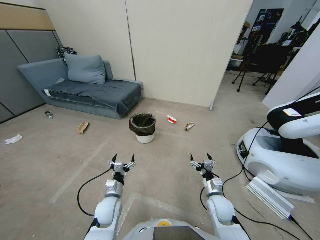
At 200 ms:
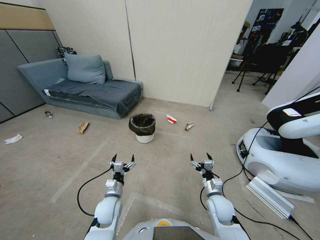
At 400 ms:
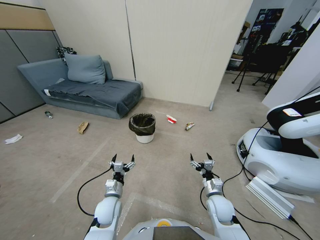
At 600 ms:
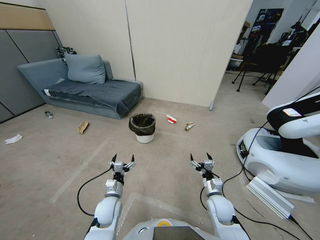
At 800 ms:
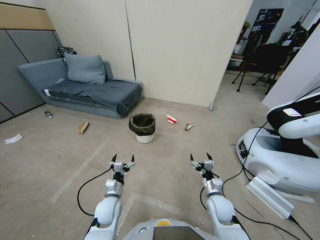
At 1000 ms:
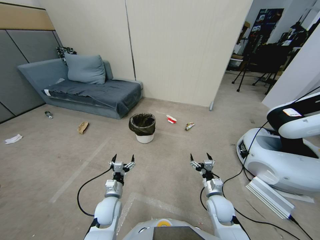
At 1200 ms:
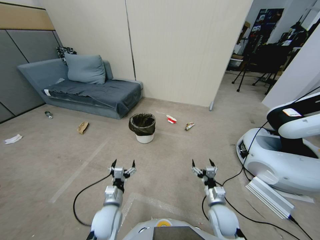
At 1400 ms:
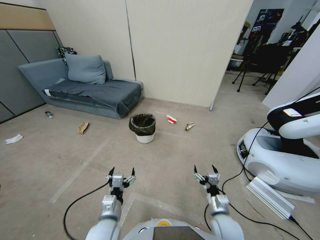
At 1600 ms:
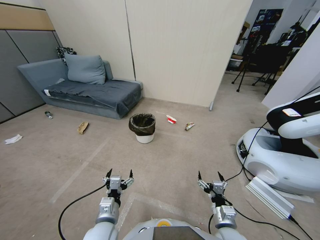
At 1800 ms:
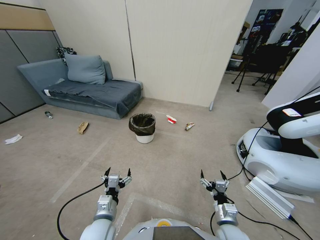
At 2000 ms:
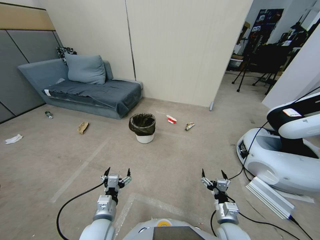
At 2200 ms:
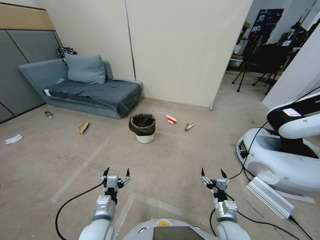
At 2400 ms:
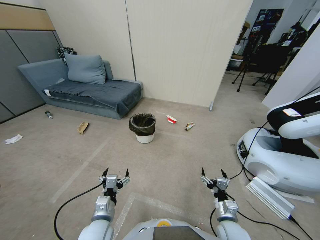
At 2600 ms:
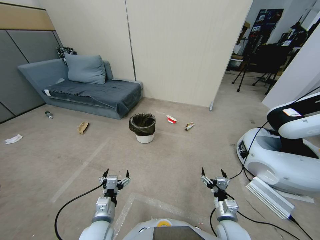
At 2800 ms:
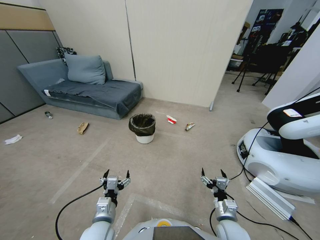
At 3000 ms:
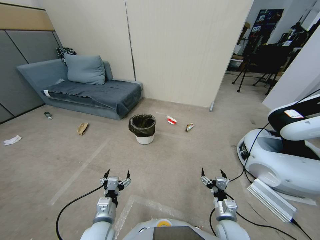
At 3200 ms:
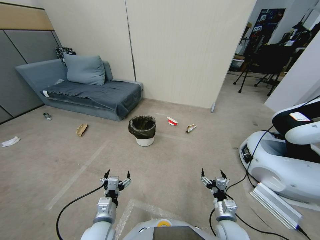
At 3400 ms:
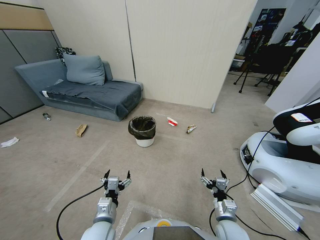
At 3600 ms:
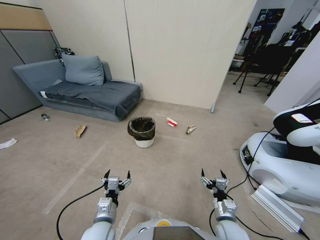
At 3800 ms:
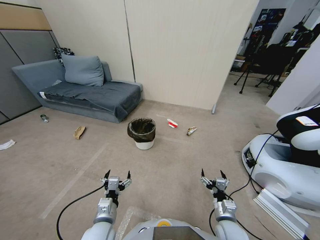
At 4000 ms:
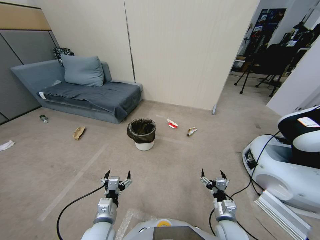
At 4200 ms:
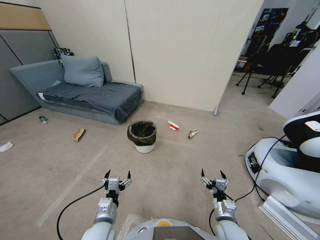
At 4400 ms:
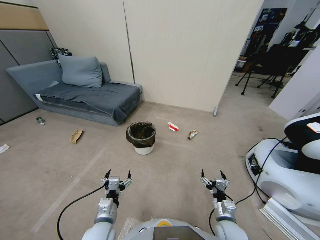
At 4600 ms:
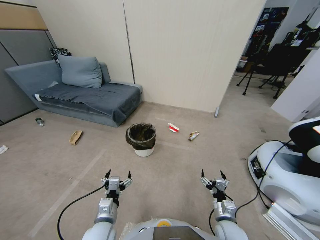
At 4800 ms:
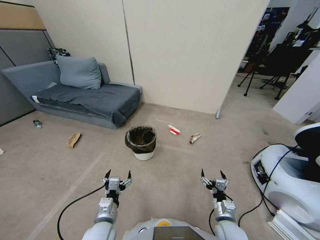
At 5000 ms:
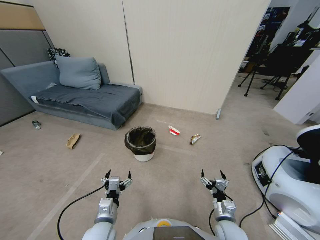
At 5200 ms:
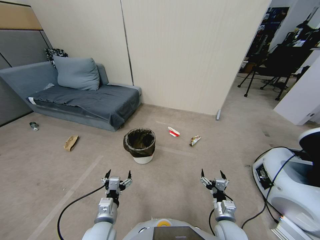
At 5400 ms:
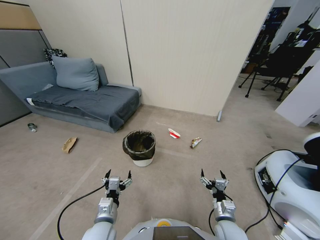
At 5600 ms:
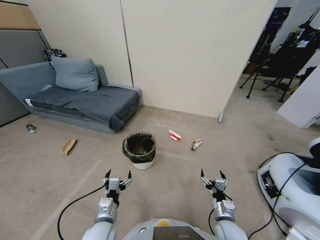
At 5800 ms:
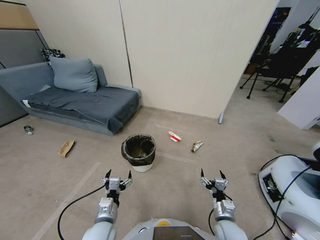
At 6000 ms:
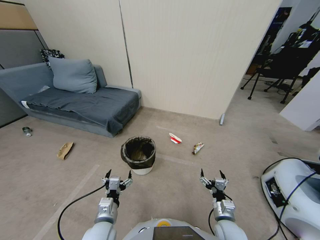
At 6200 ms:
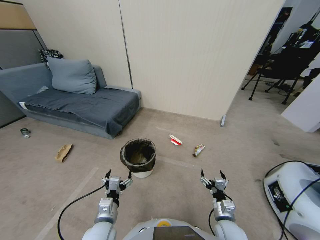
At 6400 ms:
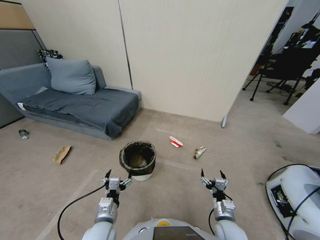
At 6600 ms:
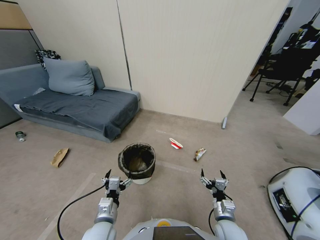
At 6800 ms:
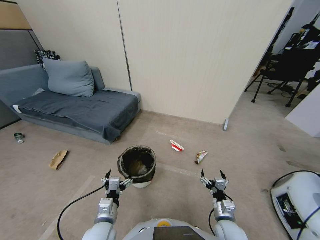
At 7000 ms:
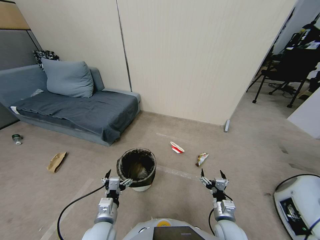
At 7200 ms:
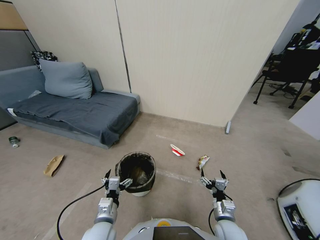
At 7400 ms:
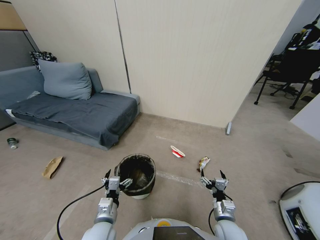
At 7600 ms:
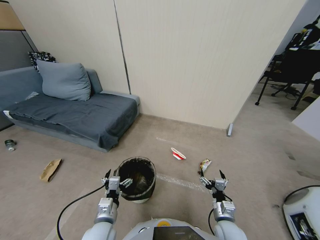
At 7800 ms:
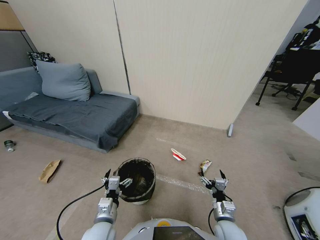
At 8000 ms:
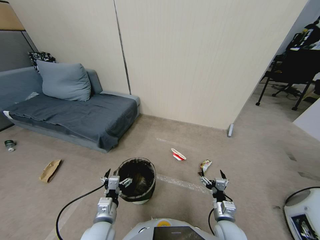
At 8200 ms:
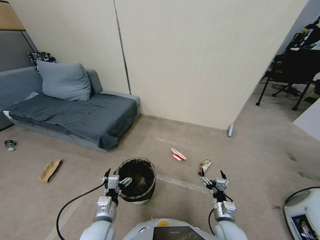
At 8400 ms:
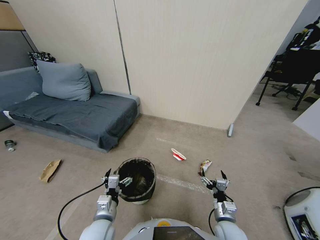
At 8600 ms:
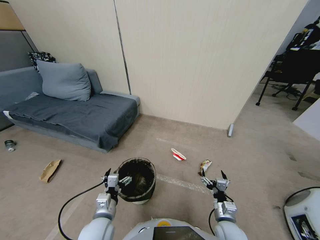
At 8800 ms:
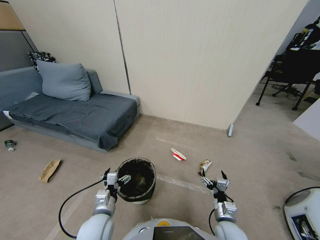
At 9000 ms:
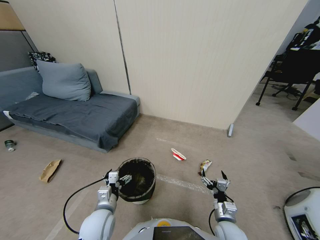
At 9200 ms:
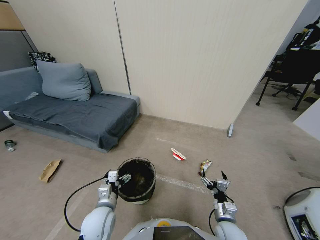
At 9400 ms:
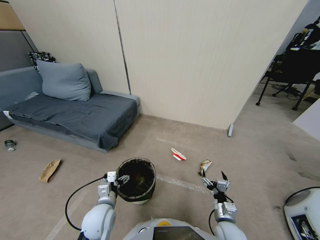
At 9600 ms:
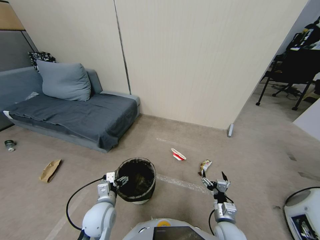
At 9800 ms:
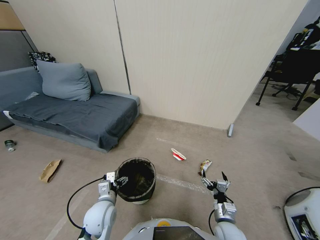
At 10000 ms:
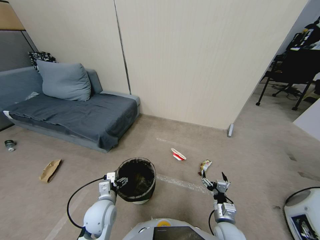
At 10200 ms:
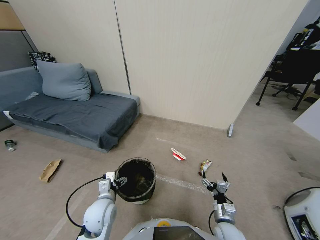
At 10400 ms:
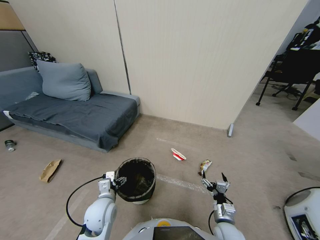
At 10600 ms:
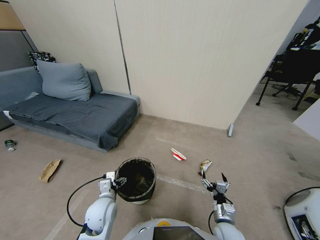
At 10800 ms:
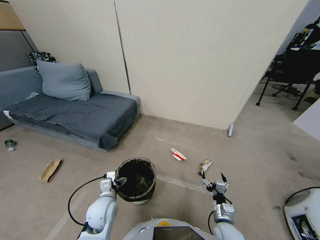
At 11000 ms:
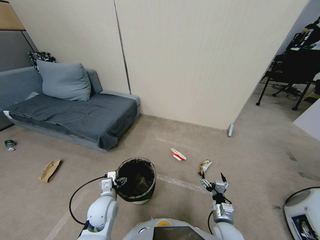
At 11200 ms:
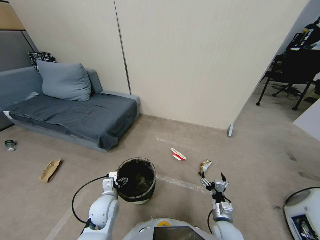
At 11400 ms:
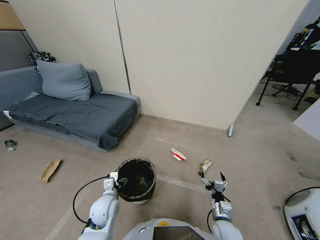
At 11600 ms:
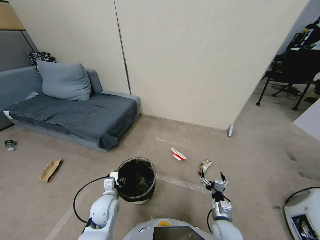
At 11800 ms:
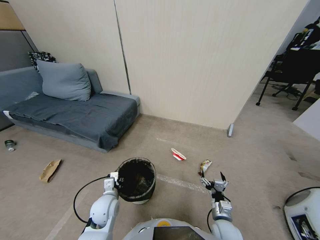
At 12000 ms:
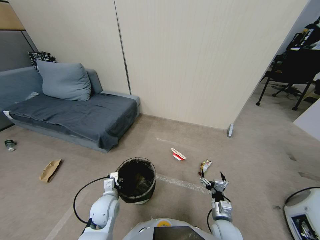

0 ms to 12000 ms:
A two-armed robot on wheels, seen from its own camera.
Task of the whole recording: Pick up the trash bin, then pick up the garbage from the floor and place it into the trash bin.
1600 ms to 3000 ms: The grippers stay close to where they were, moving slightly.
7600 ms to 9000 ms: There are only small adjustments of the grippers.
9000 ms to 10400 ms: The grippers stay close to where they were, moving slightly.
10400 ms to 12000 ms: The left gripper closes up.

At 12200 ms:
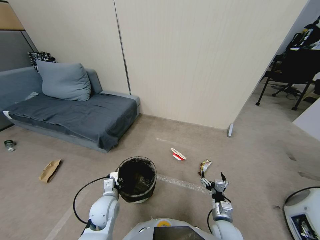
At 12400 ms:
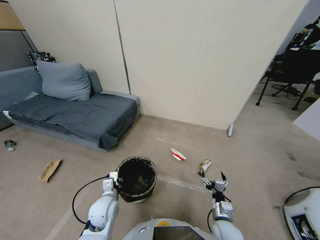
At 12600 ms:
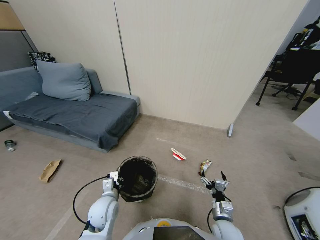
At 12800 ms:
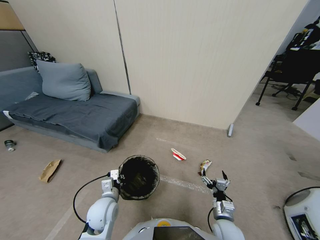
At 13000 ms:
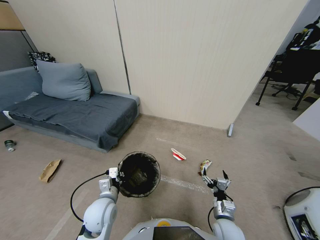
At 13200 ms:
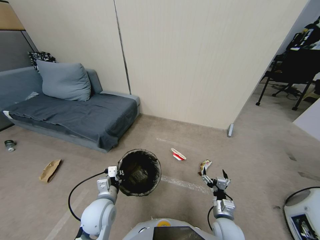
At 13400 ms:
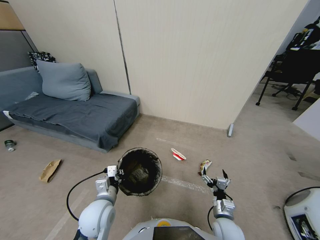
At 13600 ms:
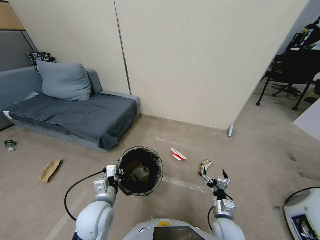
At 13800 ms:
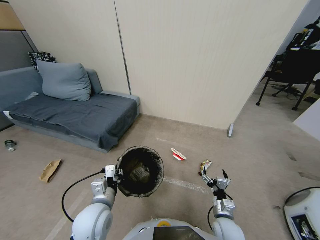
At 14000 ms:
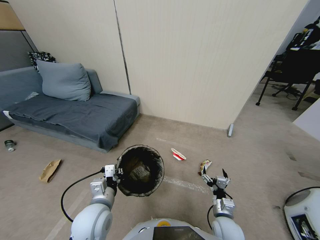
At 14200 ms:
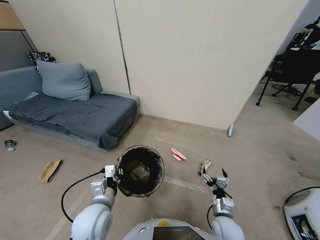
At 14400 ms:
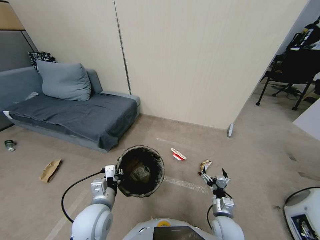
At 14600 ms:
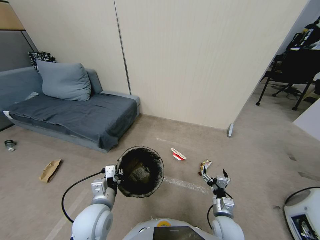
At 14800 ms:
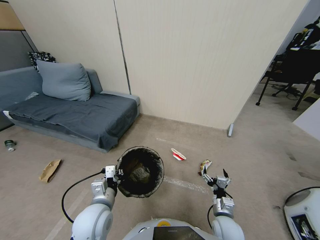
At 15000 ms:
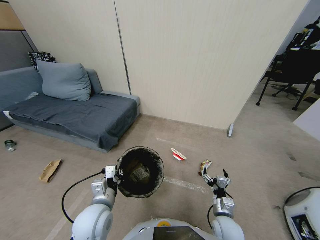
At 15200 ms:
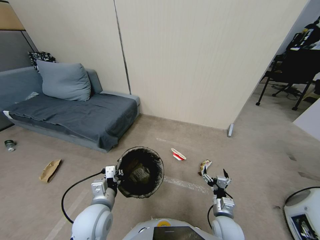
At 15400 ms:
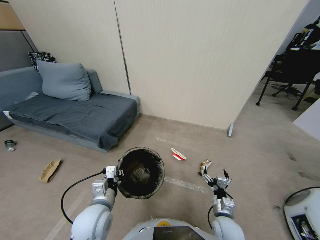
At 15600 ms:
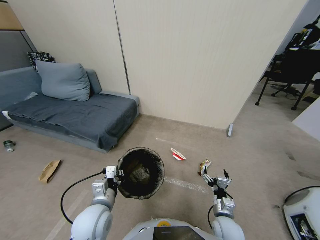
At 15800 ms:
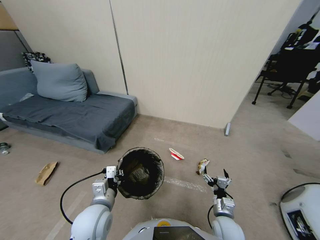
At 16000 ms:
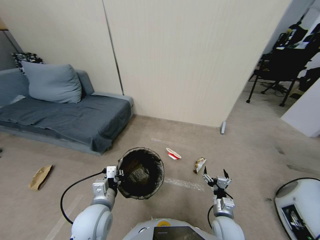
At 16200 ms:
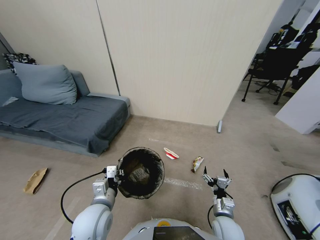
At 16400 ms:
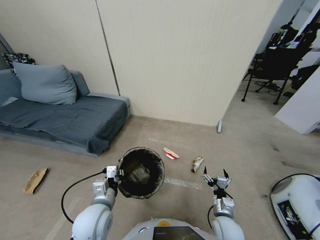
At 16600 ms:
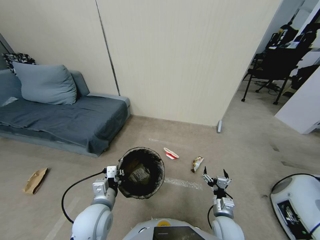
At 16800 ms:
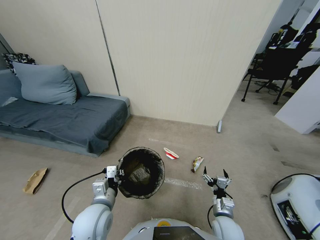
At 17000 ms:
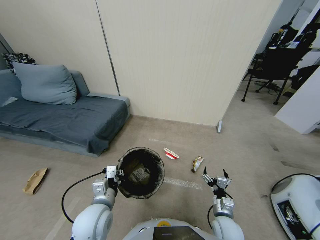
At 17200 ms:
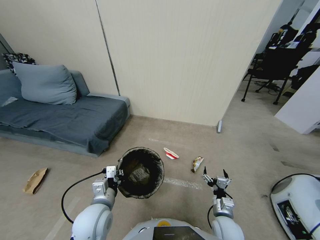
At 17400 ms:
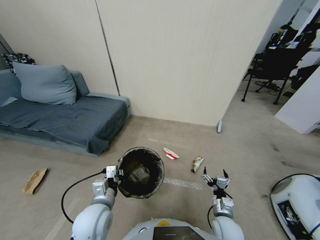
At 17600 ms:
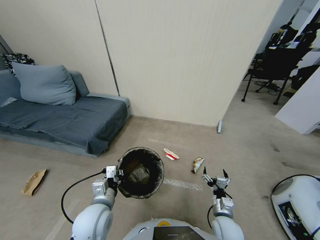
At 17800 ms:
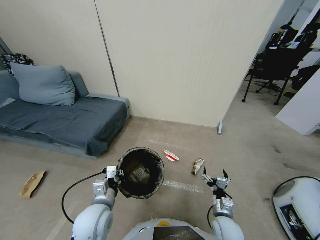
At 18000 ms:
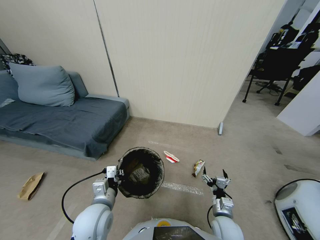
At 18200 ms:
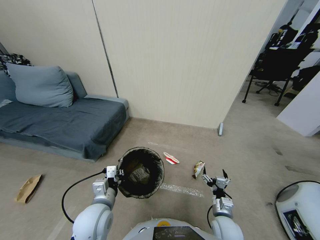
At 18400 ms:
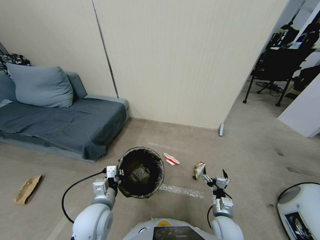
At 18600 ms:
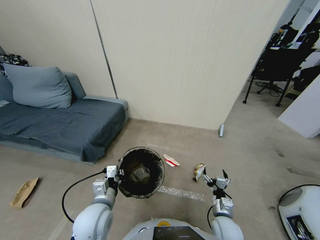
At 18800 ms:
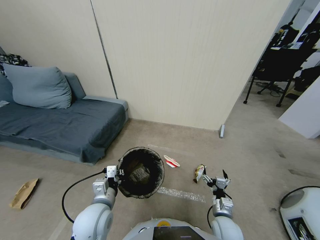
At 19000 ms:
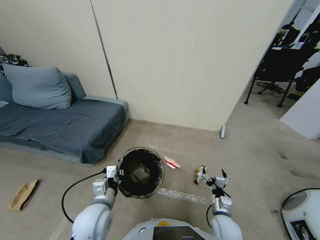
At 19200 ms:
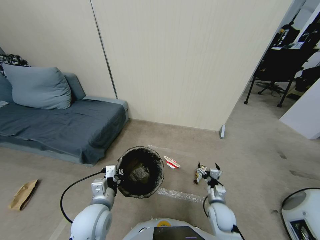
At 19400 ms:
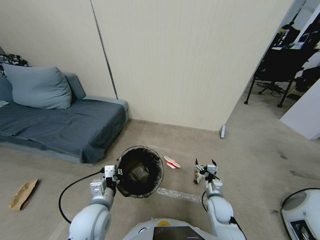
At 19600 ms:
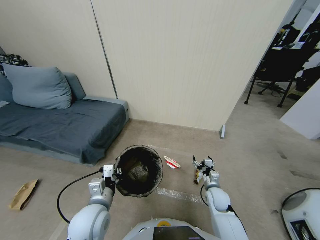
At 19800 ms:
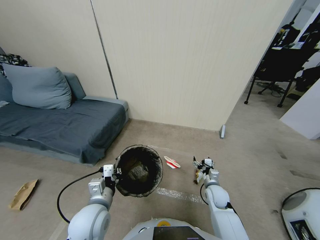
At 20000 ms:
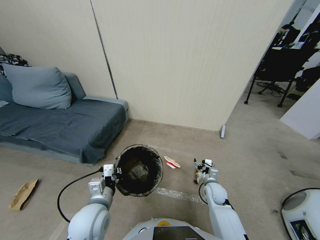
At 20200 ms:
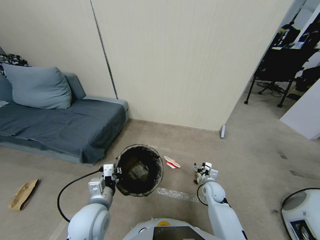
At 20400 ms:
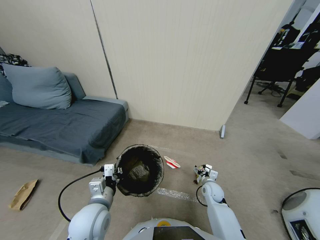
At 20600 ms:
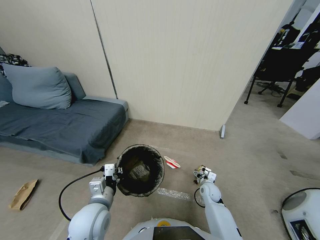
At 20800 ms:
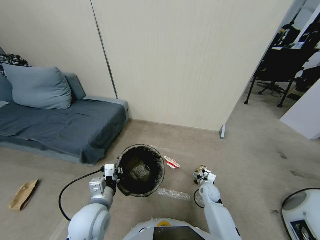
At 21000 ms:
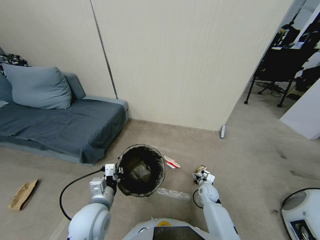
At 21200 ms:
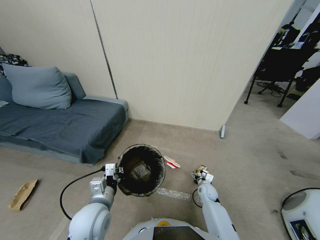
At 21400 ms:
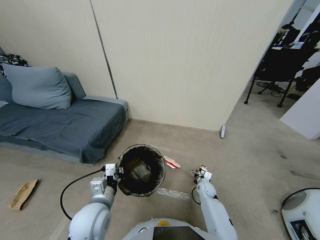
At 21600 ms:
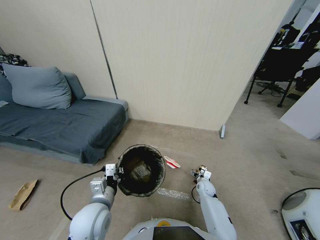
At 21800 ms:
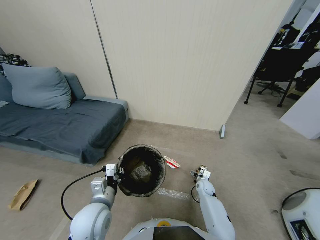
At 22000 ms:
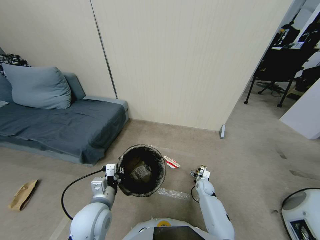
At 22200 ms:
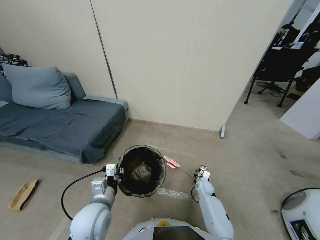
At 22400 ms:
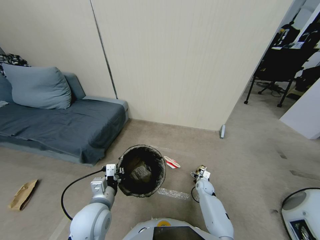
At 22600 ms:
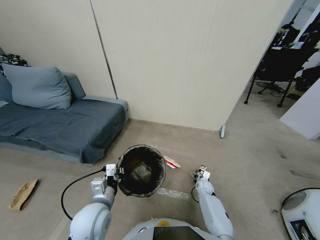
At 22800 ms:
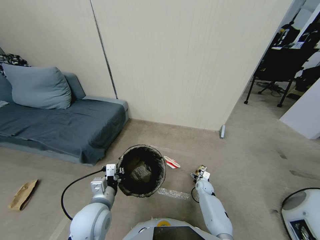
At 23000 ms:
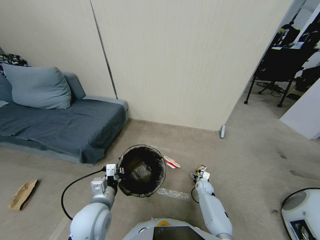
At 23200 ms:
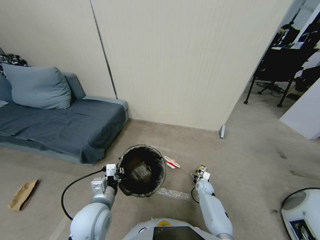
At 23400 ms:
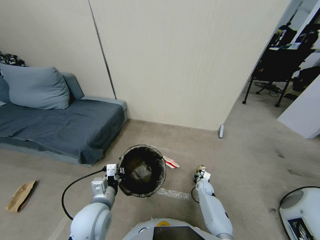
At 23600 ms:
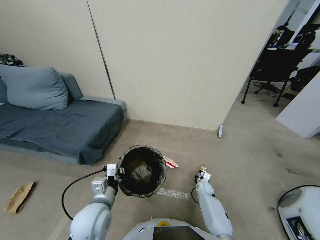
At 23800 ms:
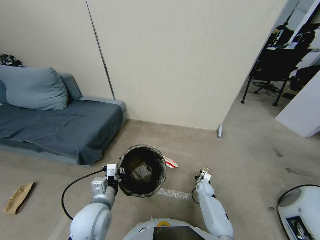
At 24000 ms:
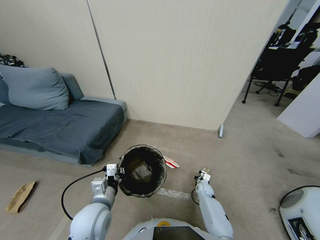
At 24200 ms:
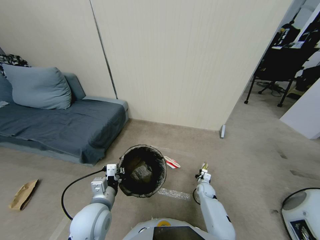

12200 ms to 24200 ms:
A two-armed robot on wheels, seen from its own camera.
Task of the whole recording: Pick up the trash bin, then pick up the garbage from the floor and place it into the trash bin.
12200 ms to 13800 ms: The left gripper heads upward, covering some 10 cm.
13800 ms to 15200 ms: Both grippers stay about where they are.
16600 ms to 18200 ms: Both grippers stay about where they are.
18200 ms to 19800 ms: The right gripper goes about 15 cm forward.
19800 ms to 21200 ms: The right gripper travels downward by about 10 cm.
21200 ms to 22600 ms: There are only small adjustments of the grippers.
22600 ms to 24200 ms: The right gripper closes.
